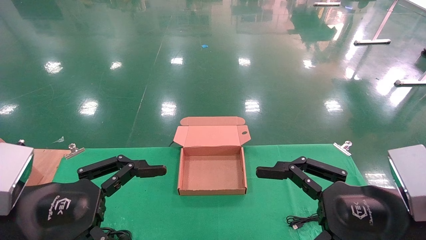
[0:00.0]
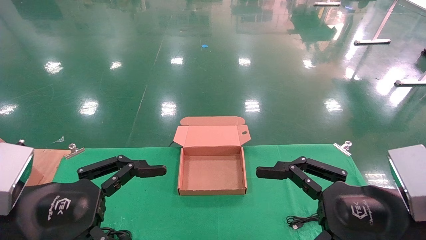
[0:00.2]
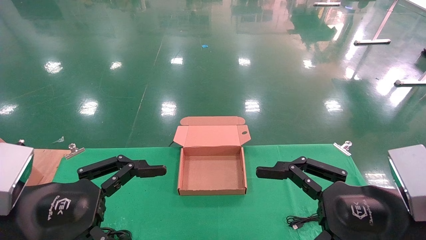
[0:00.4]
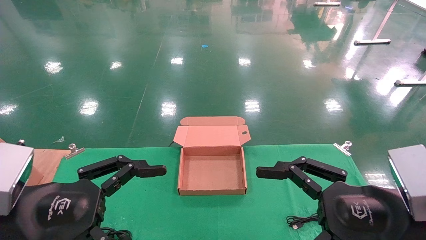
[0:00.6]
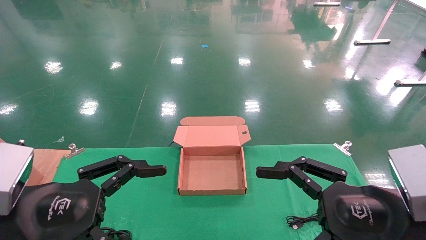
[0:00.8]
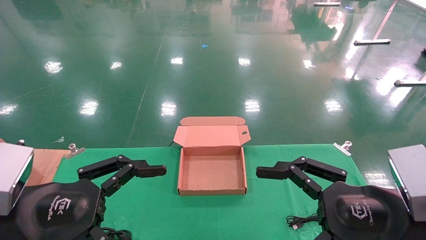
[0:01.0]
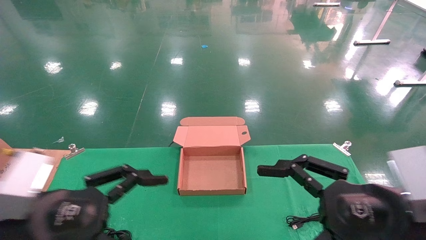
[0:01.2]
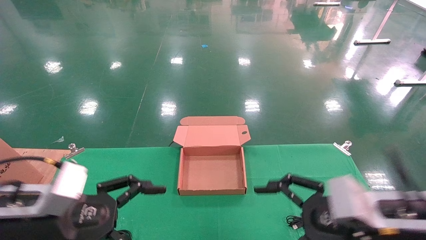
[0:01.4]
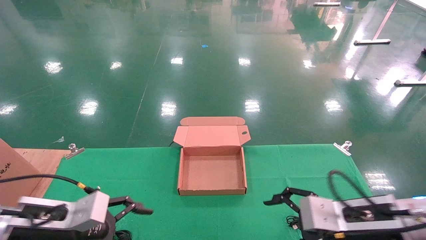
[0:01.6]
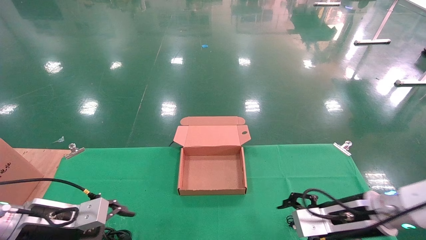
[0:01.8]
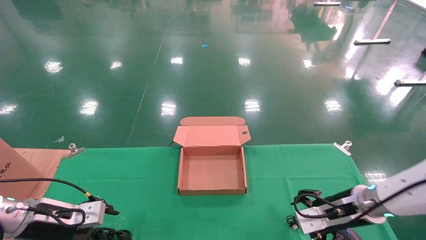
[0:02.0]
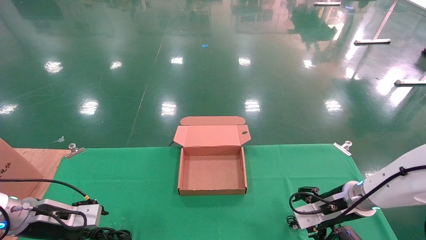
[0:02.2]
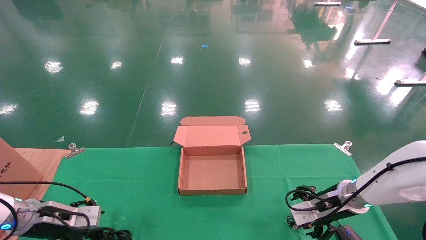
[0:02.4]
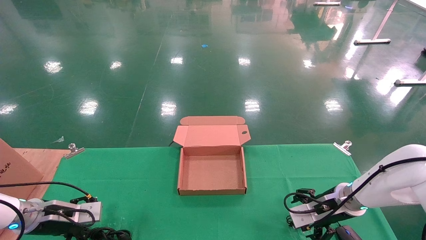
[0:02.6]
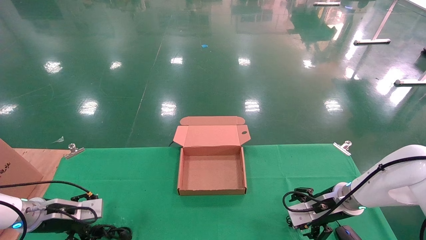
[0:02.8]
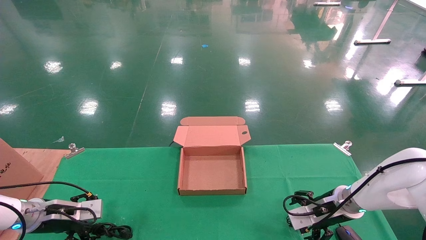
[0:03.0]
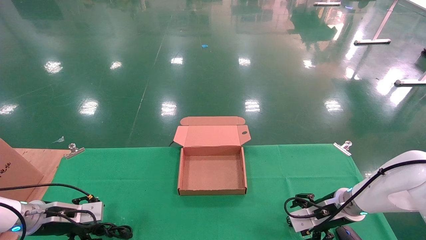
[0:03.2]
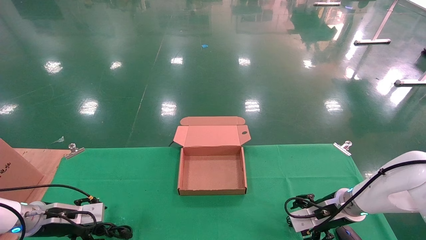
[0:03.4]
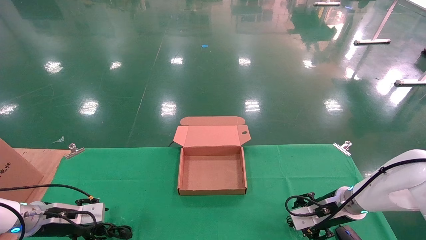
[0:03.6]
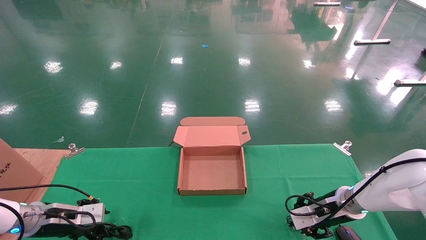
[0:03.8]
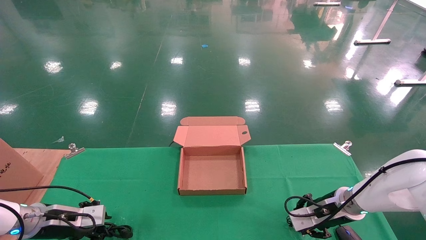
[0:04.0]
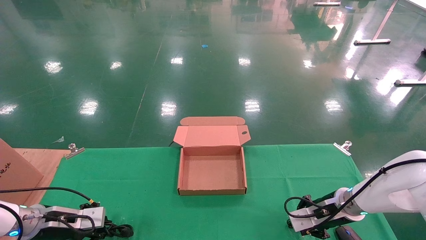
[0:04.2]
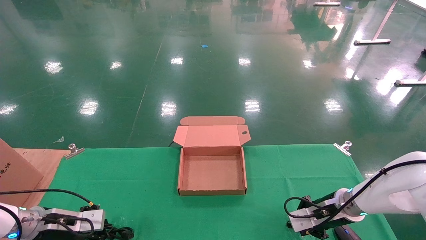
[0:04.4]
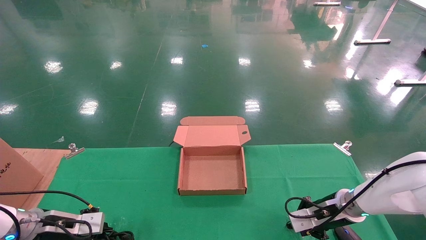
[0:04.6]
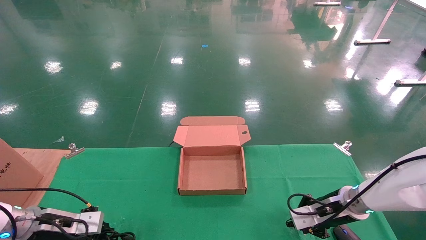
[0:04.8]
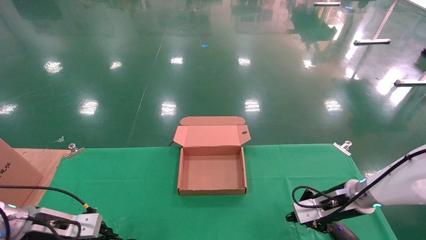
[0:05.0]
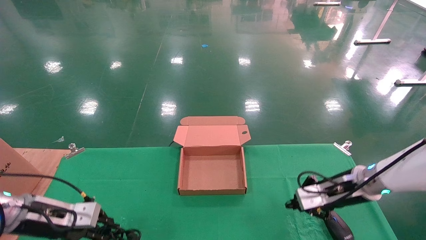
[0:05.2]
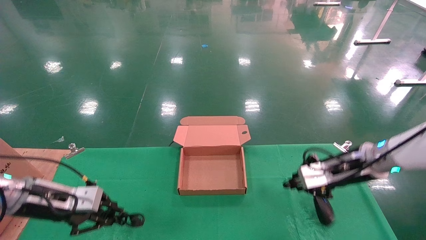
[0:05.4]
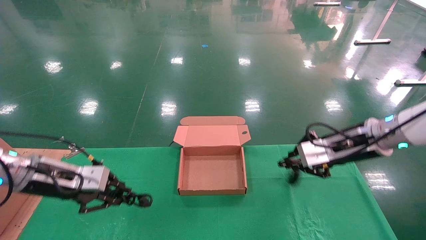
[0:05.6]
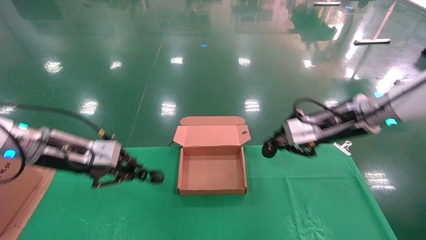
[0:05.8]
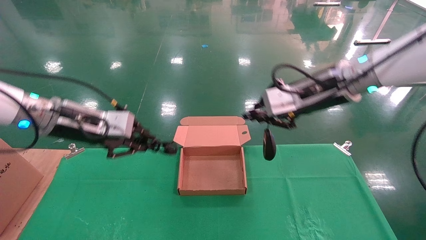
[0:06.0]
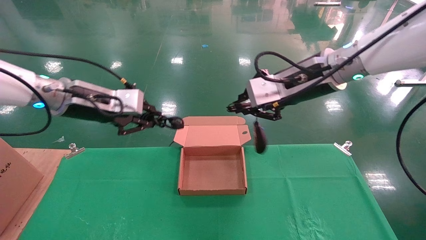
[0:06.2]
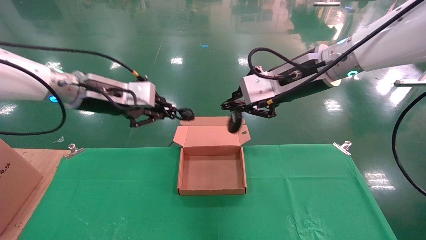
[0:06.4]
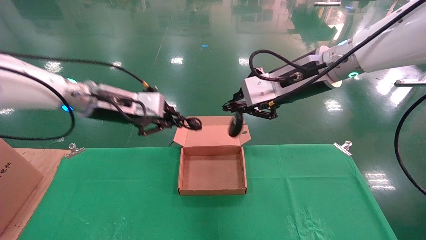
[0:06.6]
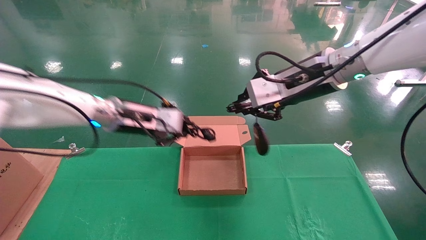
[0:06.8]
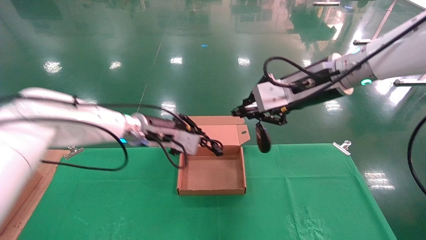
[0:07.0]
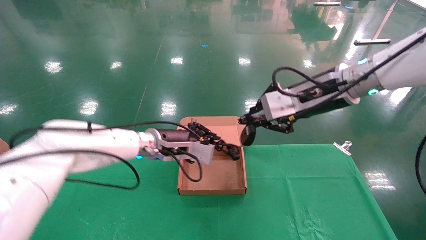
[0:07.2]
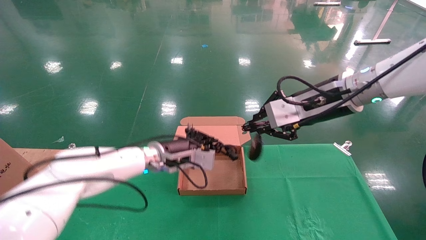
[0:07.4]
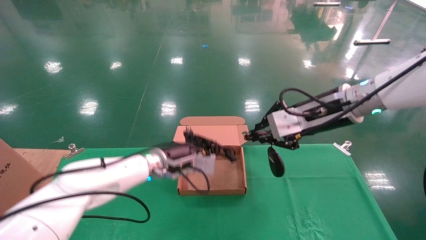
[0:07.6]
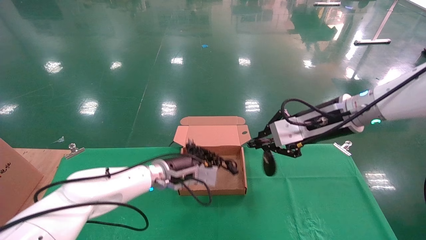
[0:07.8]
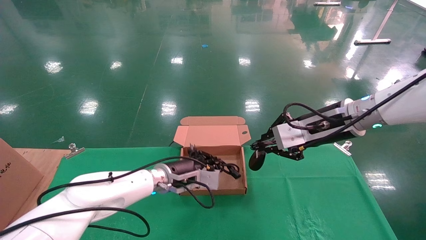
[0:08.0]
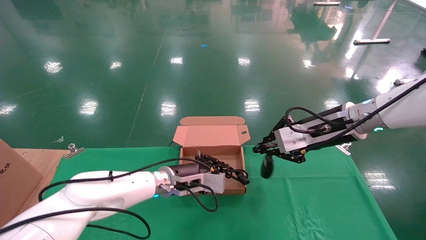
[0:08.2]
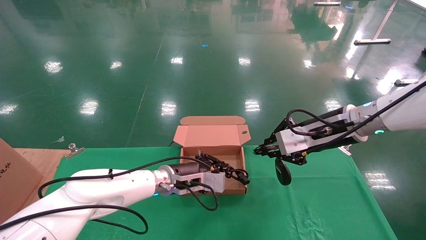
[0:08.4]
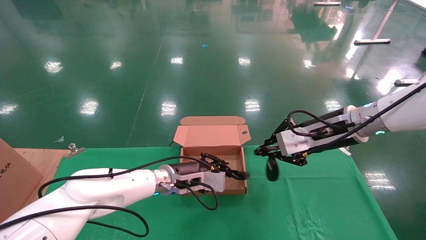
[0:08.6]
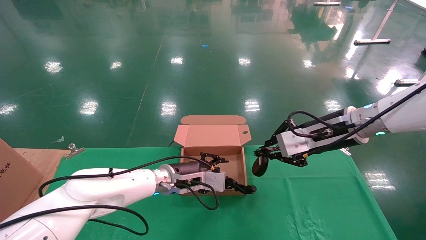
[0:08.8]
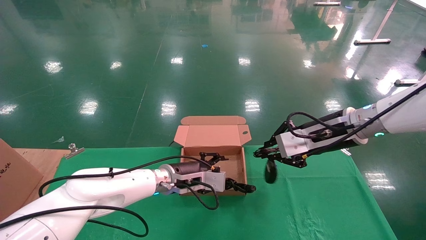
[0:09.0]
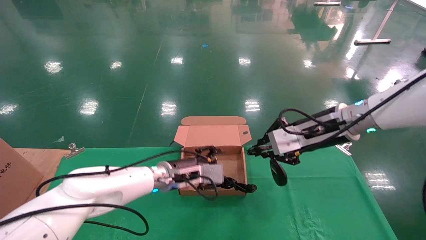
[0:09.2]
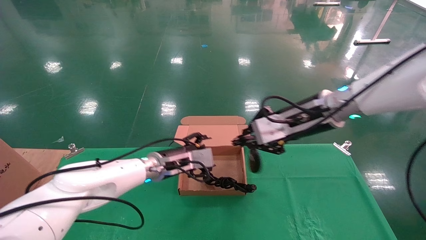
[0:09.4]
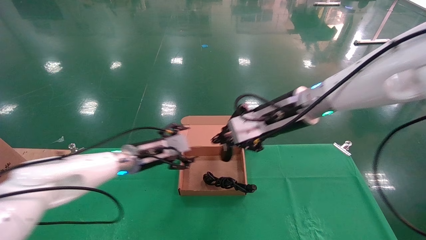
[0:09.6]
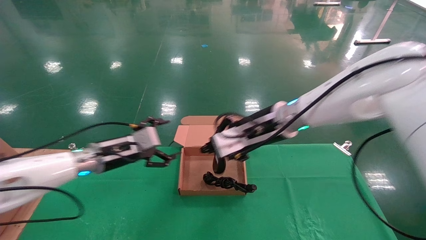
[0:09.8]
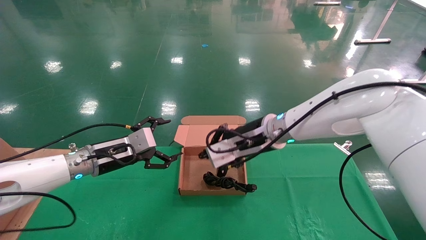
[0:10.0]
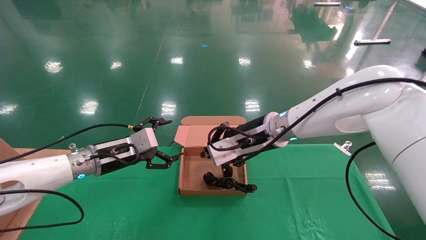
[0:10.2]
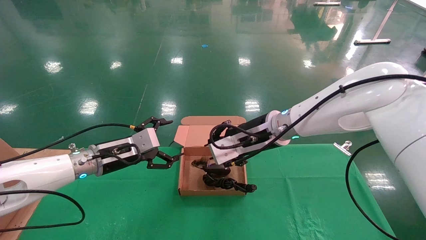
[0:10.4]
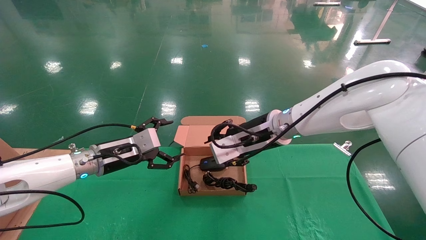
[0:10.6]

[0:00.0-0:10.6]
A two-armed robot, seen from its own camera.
Step, 0:02.0 to 0:04.4: Grab and lift both the mouse and power cord from the accessory packaging area at the same time.
0:00.0 to 0:01.6: The two grippers go approximately 15 cm forward and downward.
0:01.6 to 0:03.0: The left gripper shifts approximately 15 cm forward, to the left and downward. The right gripper travels forward and downward by roughly 15 cm.
0:03.0 to 0:04.6: The right gripper closes up; the left gripper closes its fingers.
0:04.6 to 0:06.0: The left gripper moves upward and to the right, roughly 25 cm, while the right gripper goes about 25 cm upward.
0:06.0 to 0:07.6: The left gripper shifts approximately 25 cm to the right, downward and forward.
0:07.6 to 0:09.0: There are only small adjustments of the grippers.
0:09.0 to 0:10.6: Both grippers travel together to the left, about 15 cm. The left gripper opens up.

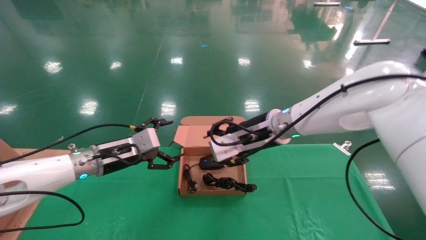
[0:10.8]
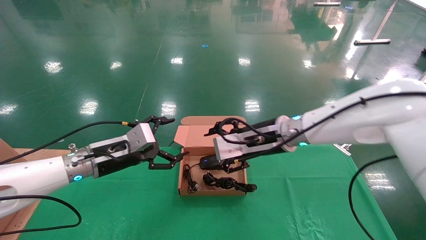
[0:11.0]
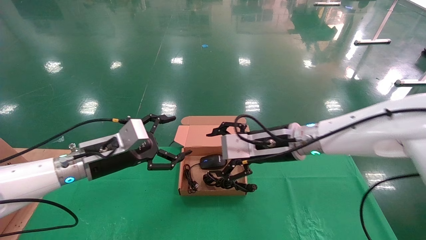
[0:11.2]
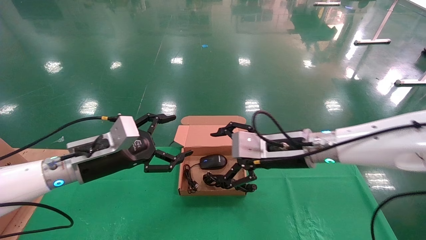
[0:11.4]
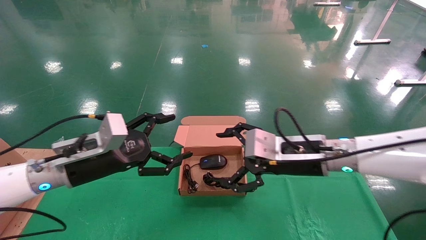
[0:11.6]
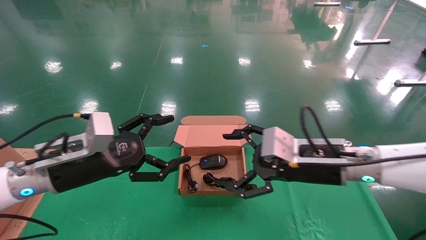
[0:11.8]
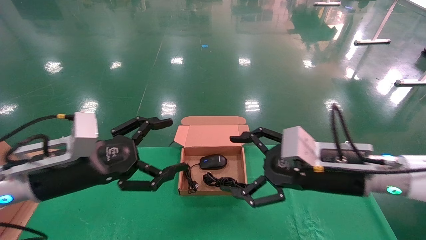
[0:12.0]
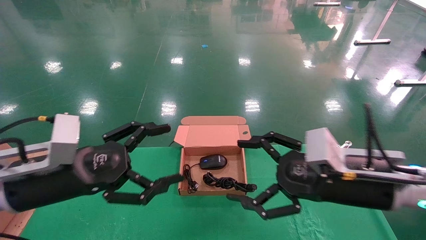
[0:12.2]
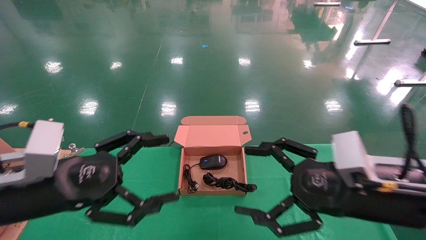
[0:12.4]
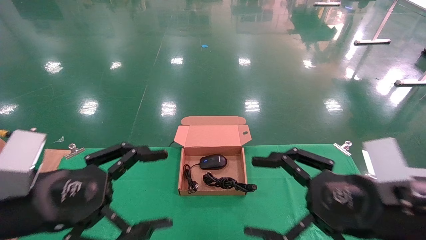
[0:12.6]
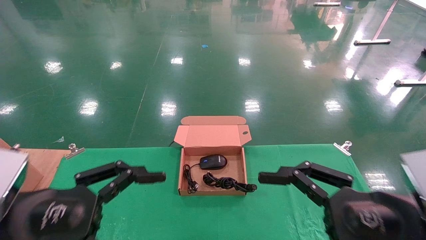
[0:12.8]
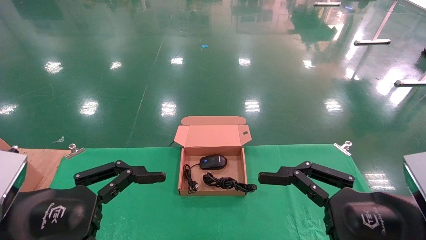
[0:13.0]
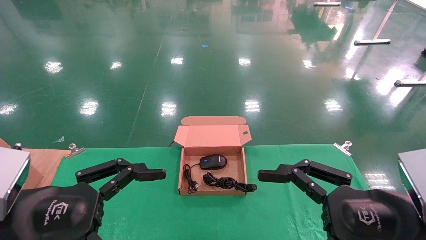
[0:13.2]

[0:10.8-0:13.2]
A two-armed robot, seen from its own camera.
0:10.8 to 0:12.0: The right gripper moves backward and to the right, some 15 cm, and opens its fingers, while the left gripper is displaced backward by about 15 cm.
0:12.0 to 0:13.2: Both grippers travel together backward, approximately 10 cm.
